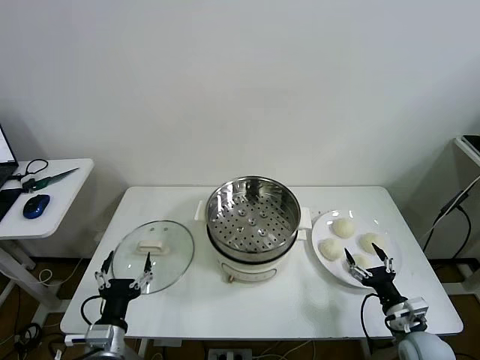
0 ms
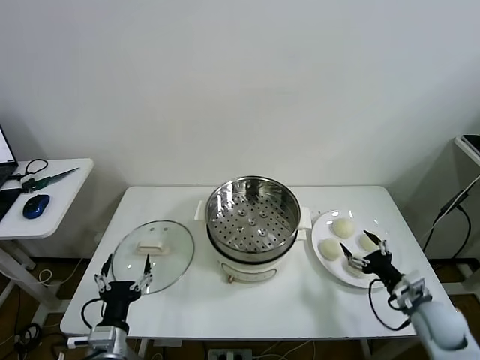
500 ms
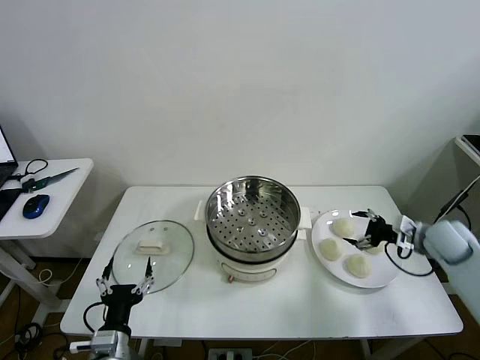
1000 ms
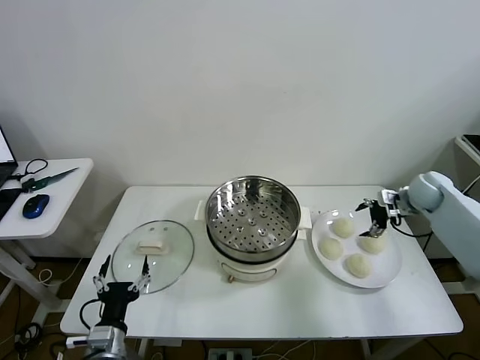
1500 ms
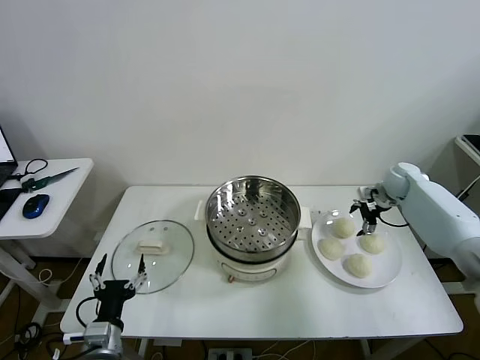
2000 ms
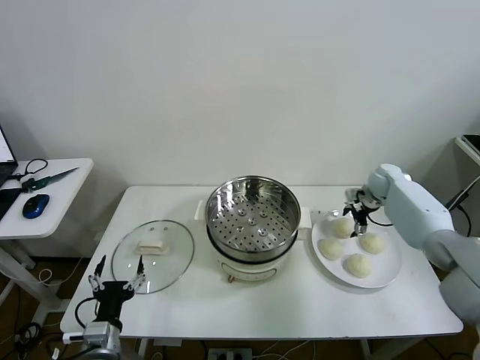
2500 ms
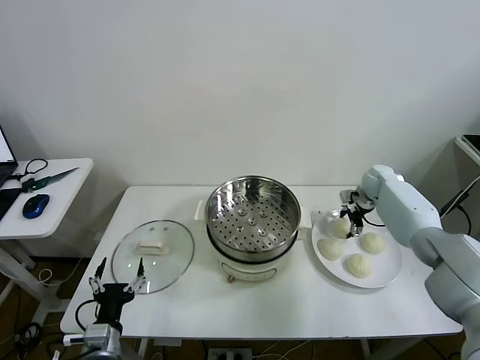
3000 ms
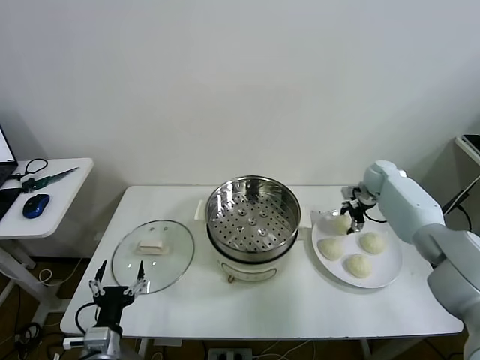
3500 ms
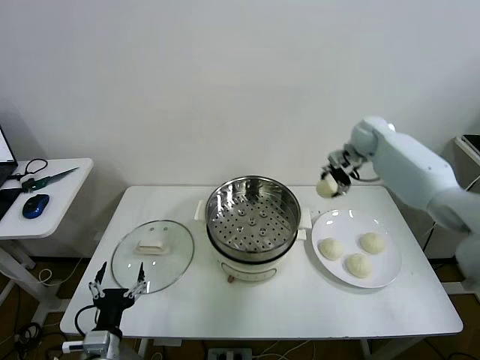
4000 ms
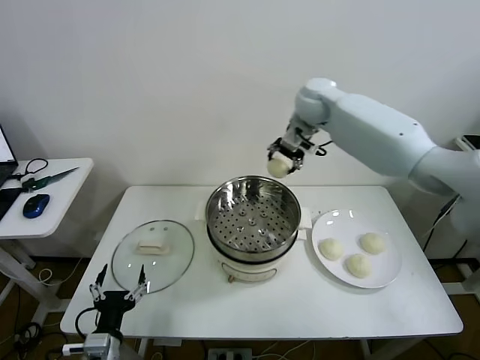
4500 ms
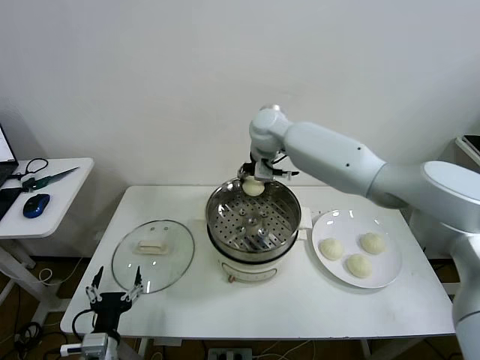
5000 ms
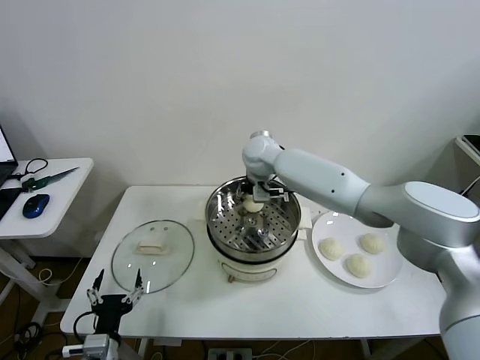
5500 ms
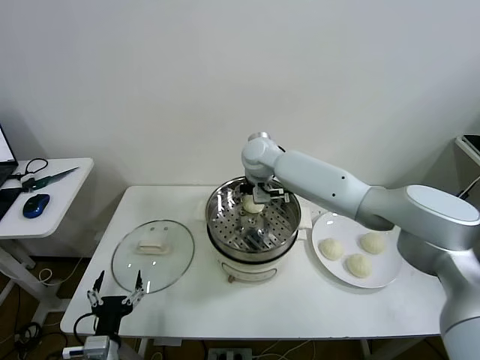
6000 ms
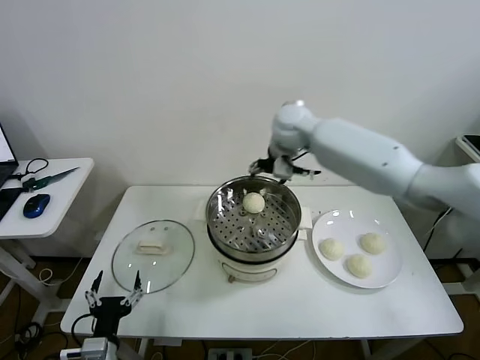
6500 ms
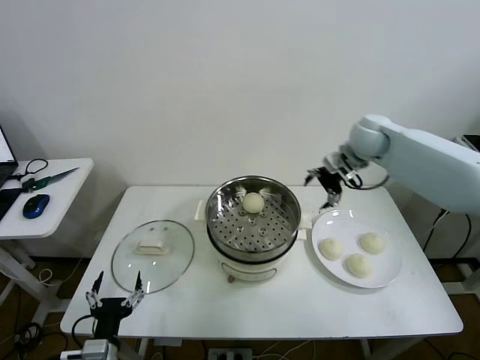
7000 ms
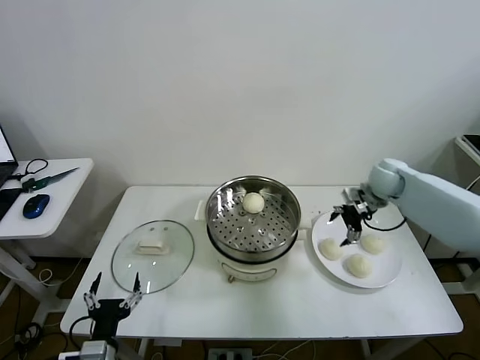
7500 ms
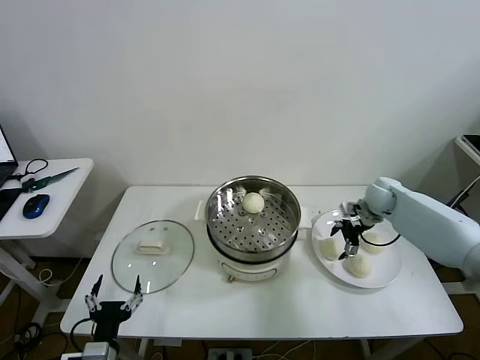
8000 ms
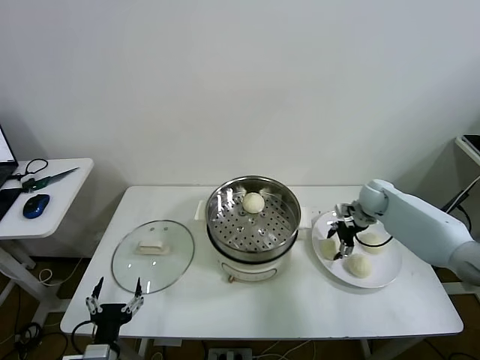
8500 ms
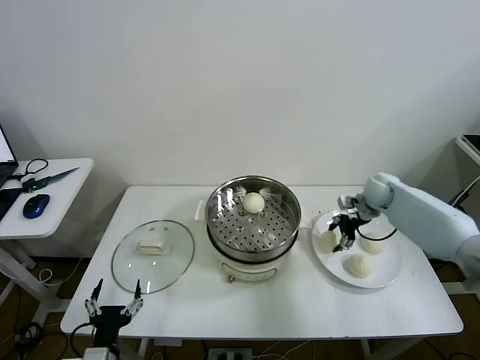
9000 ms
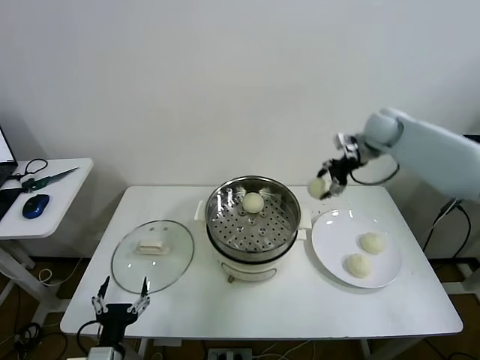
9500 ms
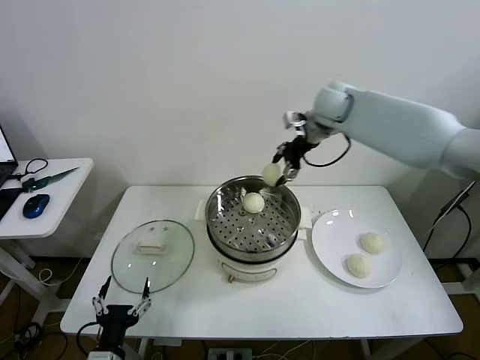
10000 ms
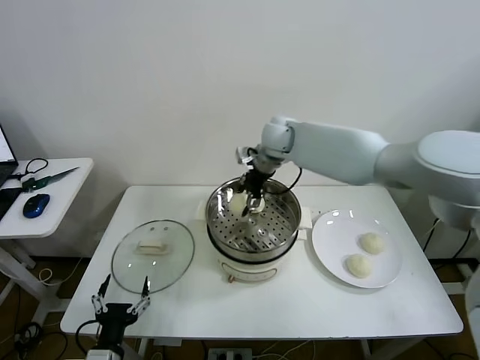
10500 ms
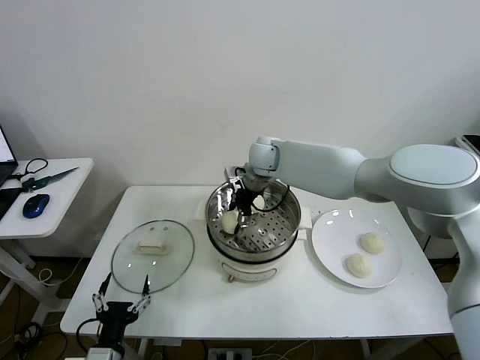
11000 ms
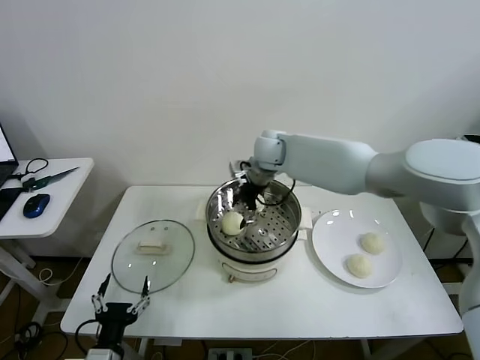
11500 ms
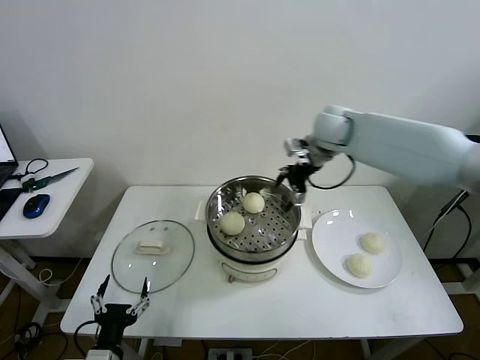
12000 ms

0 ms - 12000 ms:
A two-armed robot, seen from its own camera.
Task of the whole recording: take steamed baozi put them in steamer then cover it.
Step, 0 ms - 3000 ms: Grasp the baozi in the plate with right gripper.
Step, 3500 ms - 5500 ms: Place the baozi on the steamer with right gripper.
Step, 6500 ms - 8500 ms: Grasp the baozi in the plate with right gripper.
Step, 9000 ms - 11000 ms: Place the baozi on the steamer with right gripper.
2000 ms - 4000 ms: The right gripper moves upward and to the left, roughly 20 cm, and closes.
4000 ms - 6000 ms: The right gripper travels to the left by roughly 25 cm, and opens.
6000 ms - 8000 ms: The right gripper travels to the right and downward by approximately 35 cm.
8000 ms - 10000 ms: The right gripper moves upward and to the left, about 30 cm, and closes its fingers.
10000 ms - 12000 ms: The right gripper travels to the left and back again, roughly 10 cm each way, and opens its fingers.

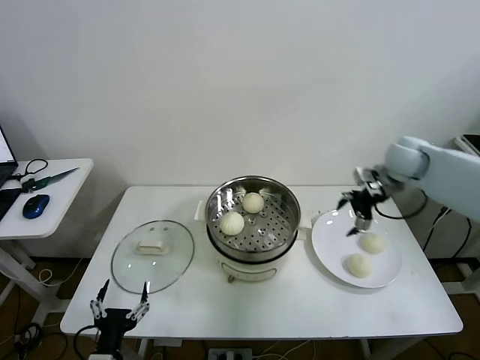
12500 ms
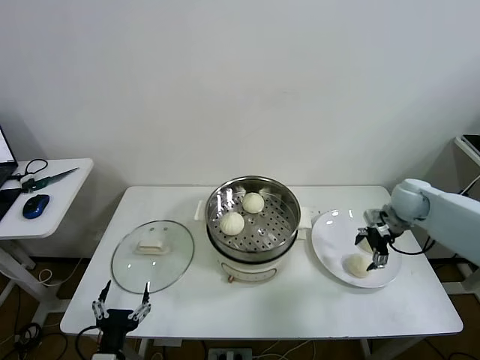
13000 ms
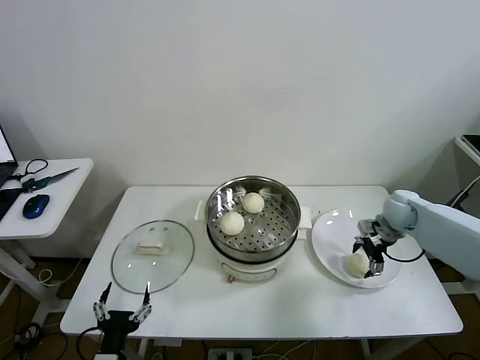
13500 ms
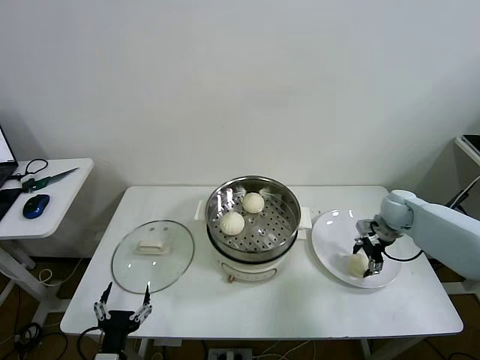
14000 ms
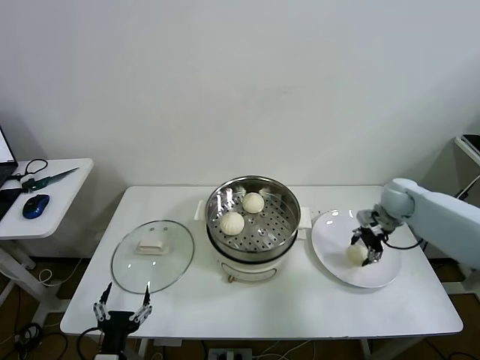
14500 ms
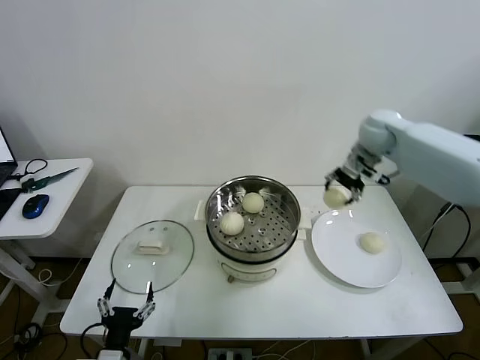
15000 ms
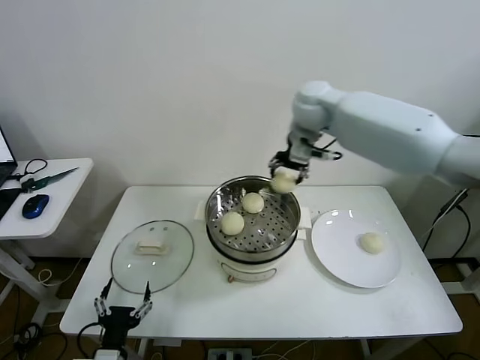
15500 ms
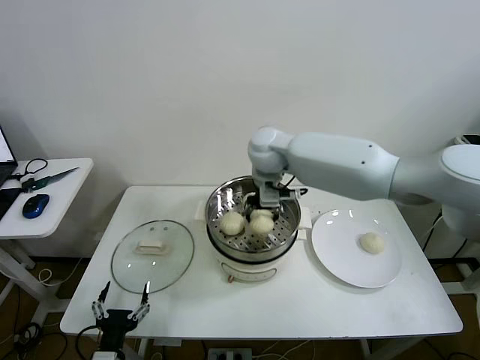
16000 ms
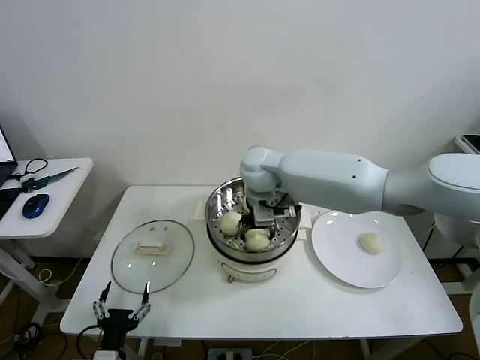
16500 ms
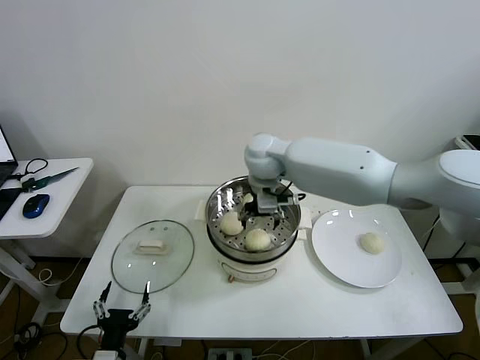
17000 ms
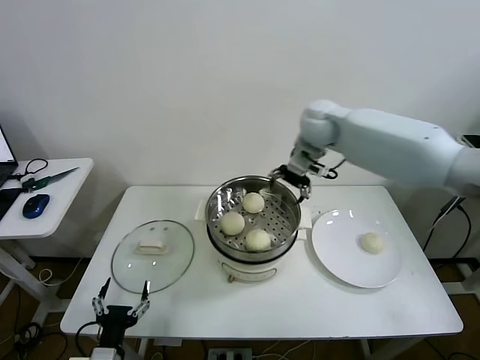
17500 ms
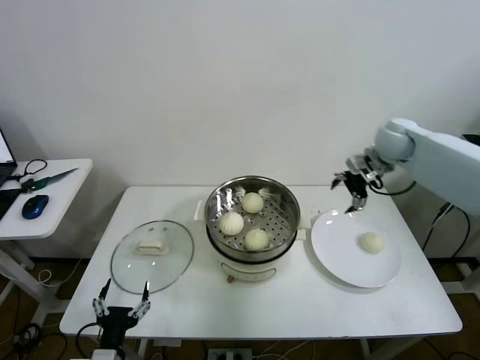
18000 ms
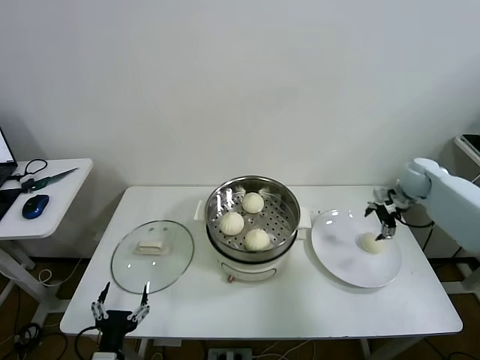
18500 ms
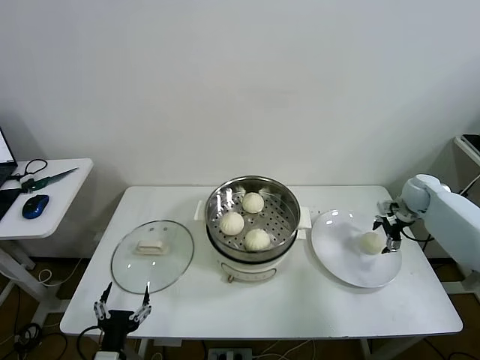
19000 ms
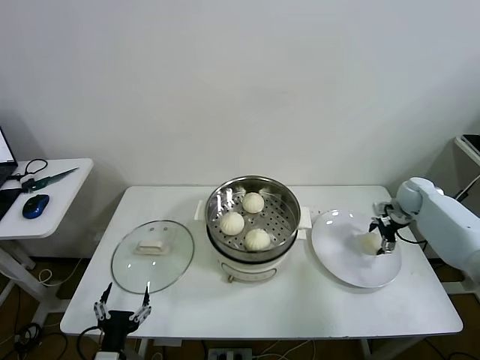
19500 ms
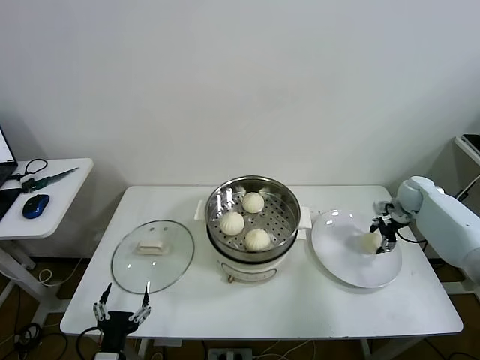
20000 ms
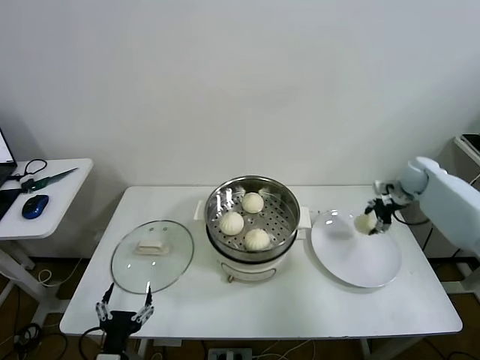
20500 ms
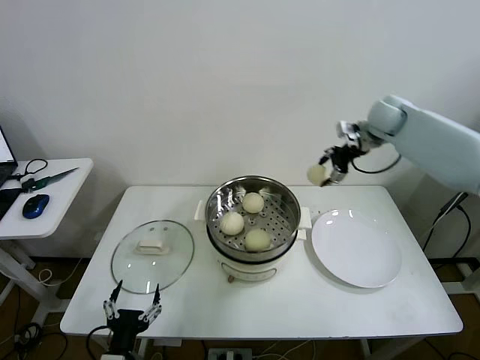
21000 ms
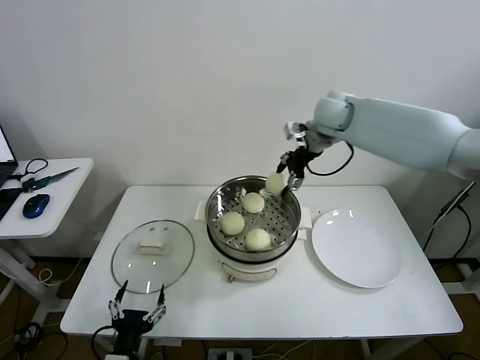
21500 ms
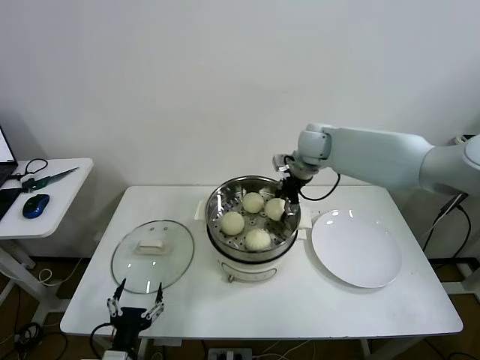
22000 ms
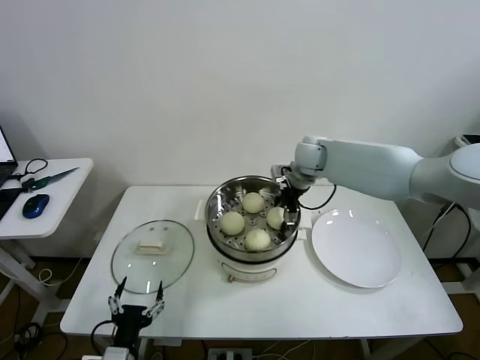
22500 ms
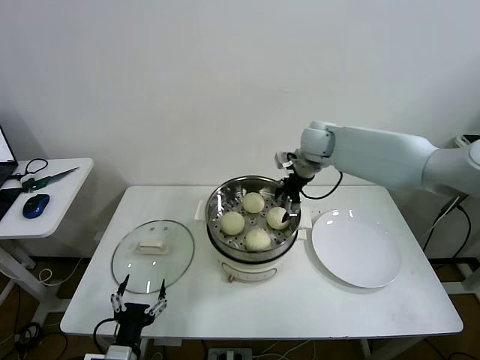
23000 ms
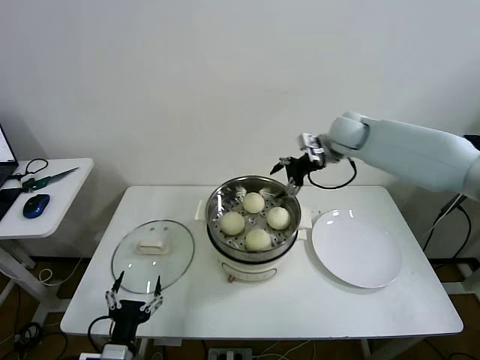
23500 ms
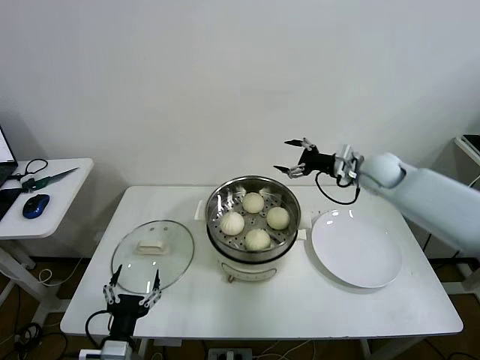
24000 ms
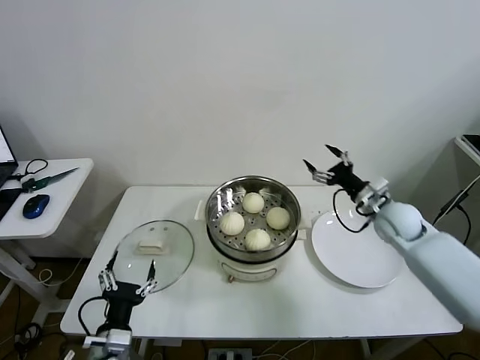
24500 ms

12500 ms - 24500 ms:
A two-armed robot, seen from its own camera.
Task of the whole recording: take steamed baozi put them in steamer then cover it.
Step, 12500 ms - 14000 ms: Grasp the baozi in the plate with right gripper.
Step, 14500 ms - 16500 ms: Place the baozi on the steamer with right gripper.
Step, 17000 ms - 19500 ms: Grasp the baozi in the plate with right gripper.
Step, 20000 ms - 22500 ms: Place the baozi on the steamer with right gripper.
12500 ms - 14500 ms: The right gripper travels downward by roughly 10 cm, and closes its fingers.
14500 ms - 16500 ms: The right gripper moves to the left, roughly 35 cm, and opens up.
16500 ms - 18500 ms: The right gripper shifts approximately 40 cm to the right.
18500 ms - 20500 ms: The right gripper closes its fingers.
20500 ms - 22500 ms: The right gripper heads to the left, covering roughly 30 cm, and opens.
22500 ms - 24500 ms: The right gripper travels to the right, backward and downward by approximately 25 cm.

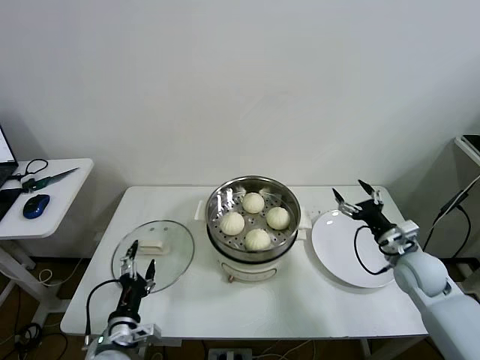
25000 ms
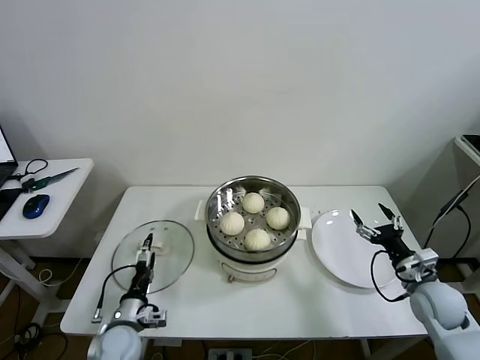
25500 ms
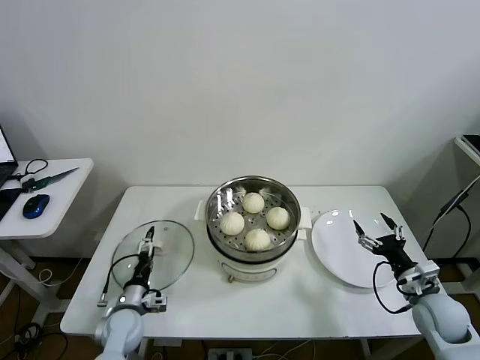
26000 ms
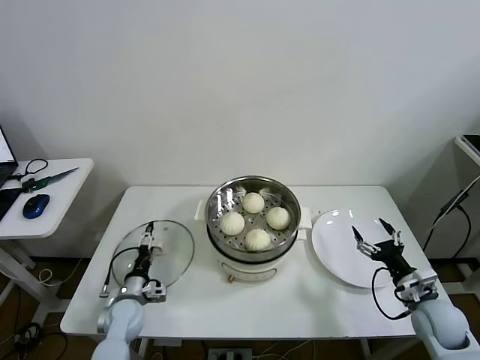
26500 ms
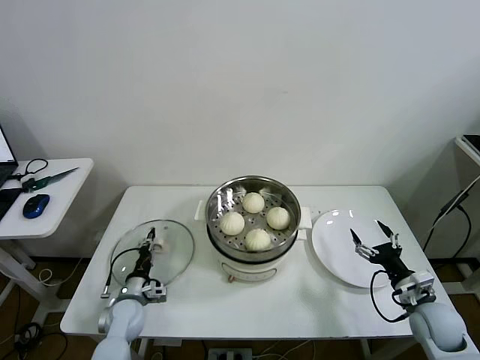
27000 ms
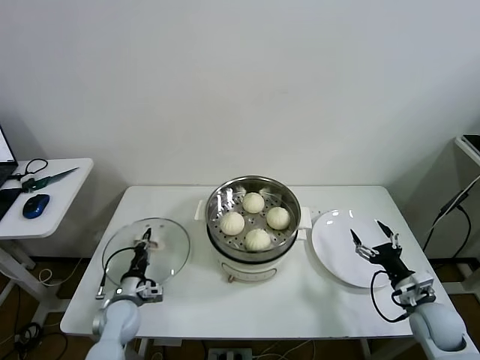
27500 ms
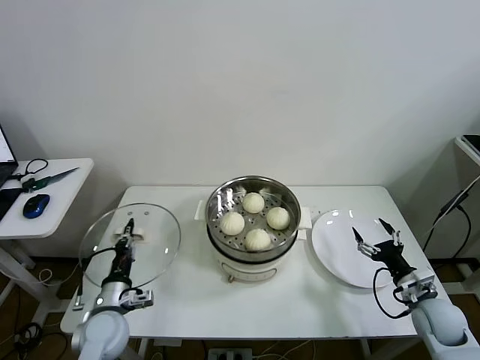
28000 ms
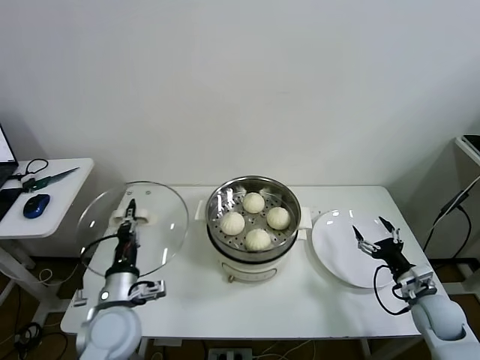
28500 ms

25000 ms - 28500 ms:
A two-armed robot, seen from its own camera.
Task of the whole recording: take steamed baozi put them in steamer then cover it.
Step, 25000 ms - 27000 ms: Grasp the pot lid with left gripper.
25000 ms - 27000 ms: The left gripper goes approximately 15 cm forward and downward, and closes its fingers; the right gripper is displaced backward and downward by roughly 10 cm.
27000 ms - 28500 ms: The left gripper moves upward and backward, about 20 cm.
